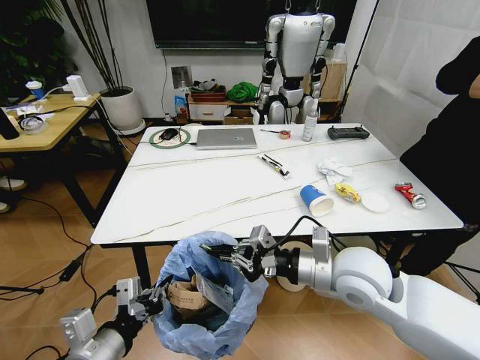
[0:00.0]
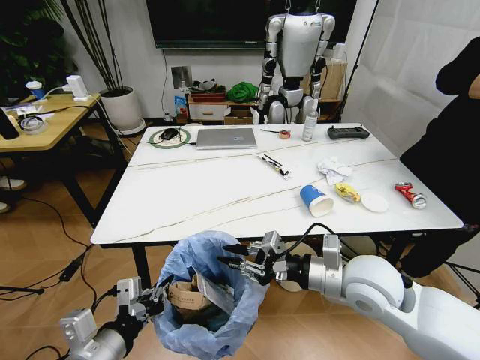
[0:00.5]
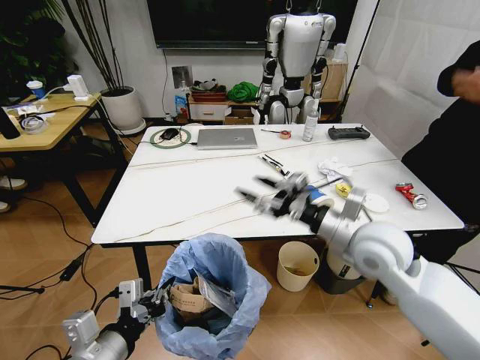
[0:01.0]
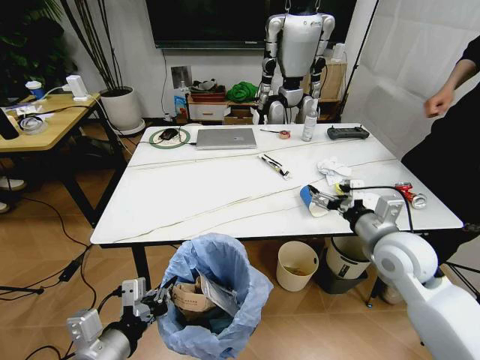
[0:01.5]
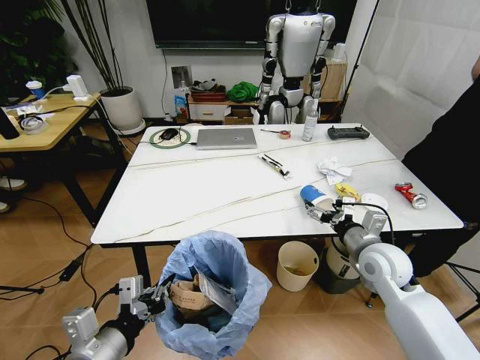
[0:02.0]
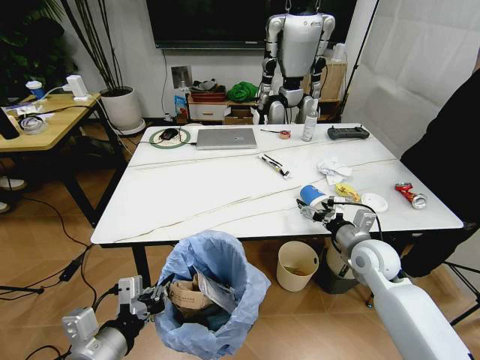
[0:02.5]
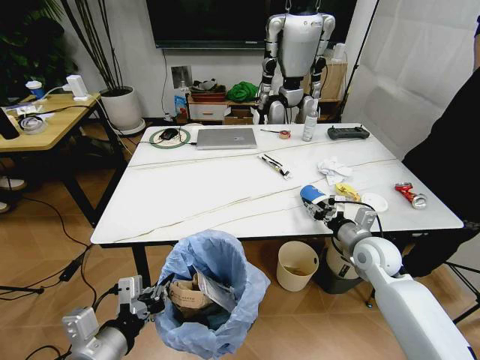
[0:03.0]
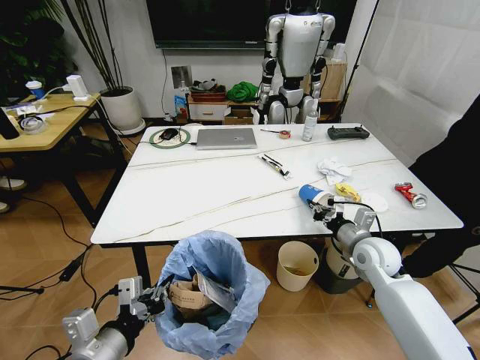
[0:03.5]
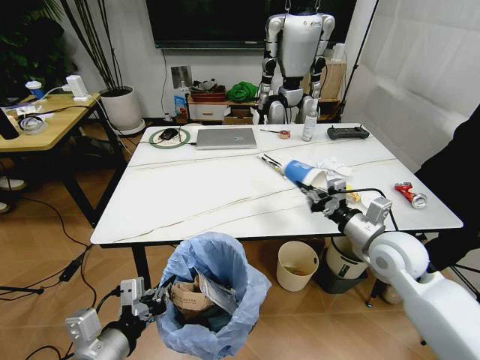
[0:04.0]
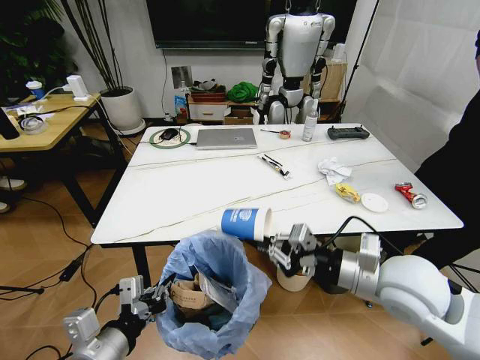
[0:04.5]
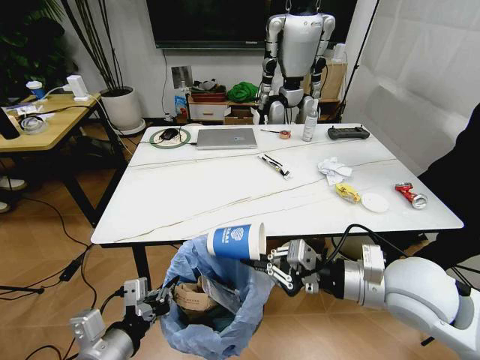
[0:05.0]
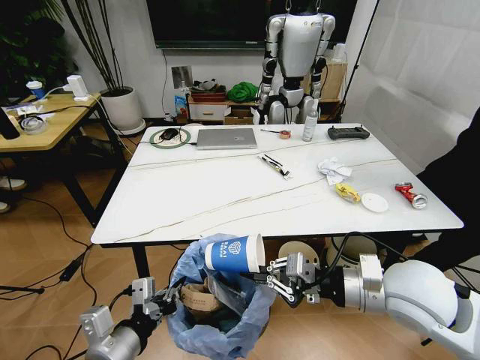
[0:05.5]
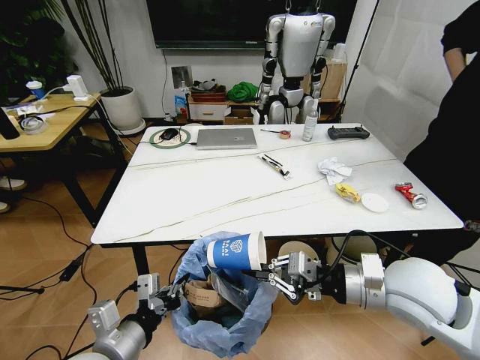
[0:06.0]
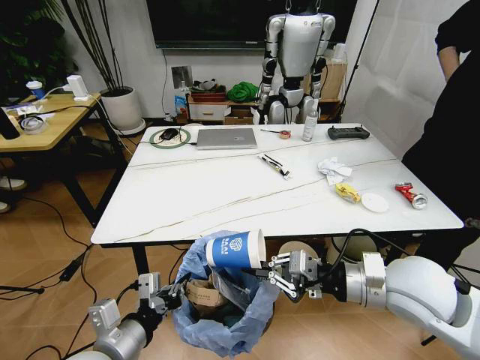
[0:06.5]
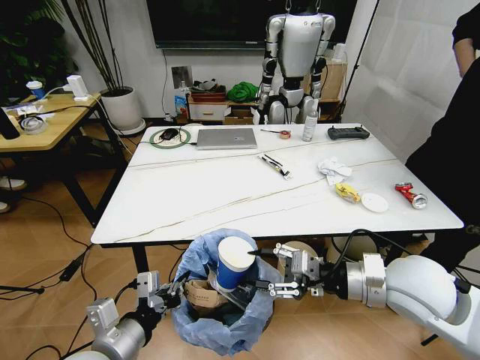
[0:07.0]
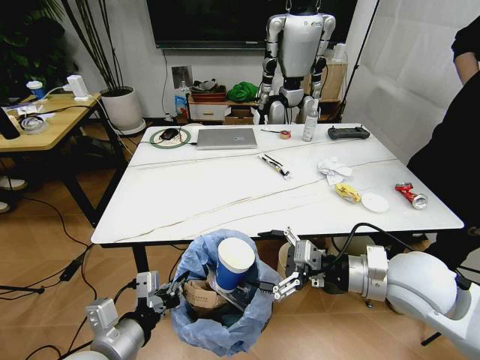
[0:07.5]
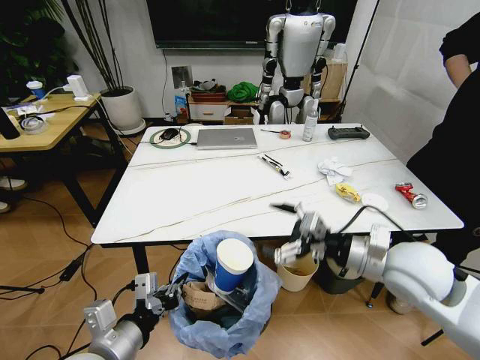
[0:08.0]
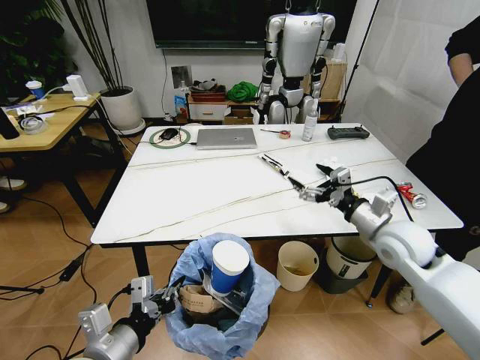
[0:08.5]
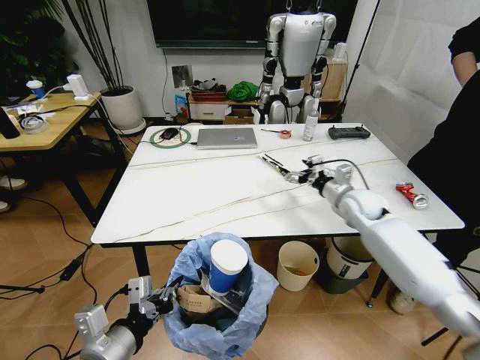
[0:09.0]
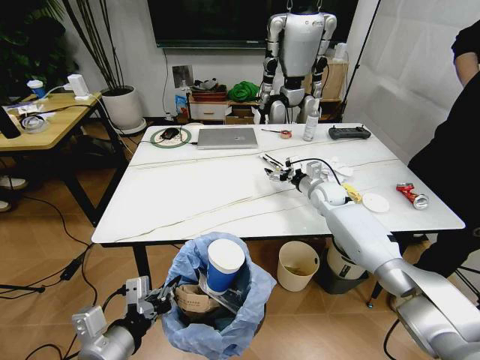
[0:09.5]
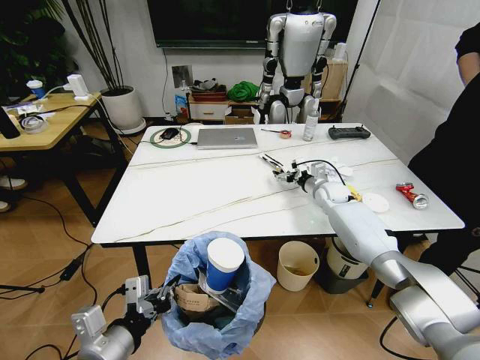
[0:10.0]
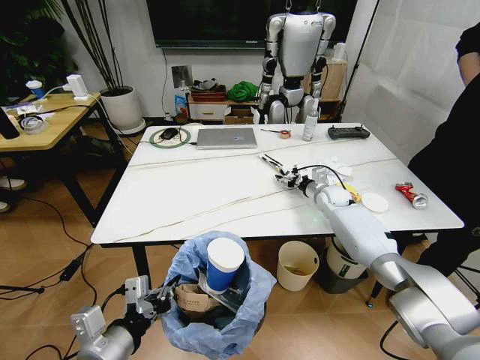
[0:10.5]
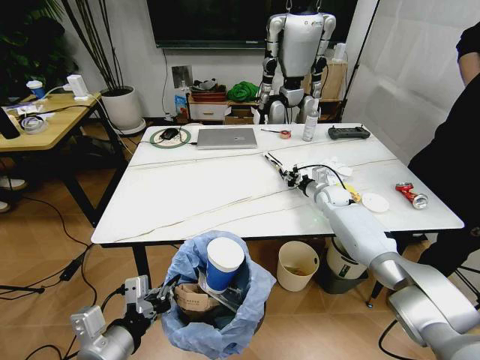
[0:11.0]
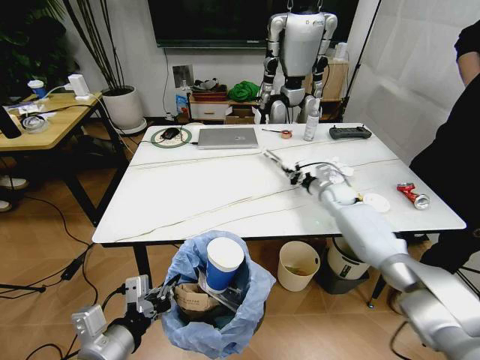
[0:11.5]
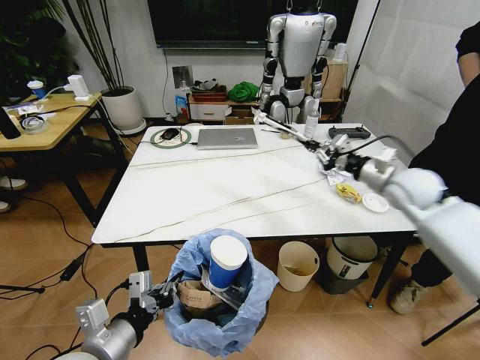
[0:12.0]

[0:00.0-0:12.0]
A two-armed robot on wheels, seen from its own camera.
Task of the whole recording: Pick up the trash bin and place the trash from the table into it.
0:00.0 to 0:02.0: The right gripper is displaced to the right, downward and forward by about 15 cm, and opens.
0:02.0 to 0:04.0: The right gripper closes up.
0:04.0 to 0:06.0: The right gripper goes about 10 cm backward.
0:06.0 to 0:08.0: The right gripper opens up.
0:08.0 to 0:10.0: The right gripper moves forward and downward, roughly 35 cm.
0:10.0 to 0:12.0: The right gripper shifts some 20 cm upward, backward and to the right, and closes.

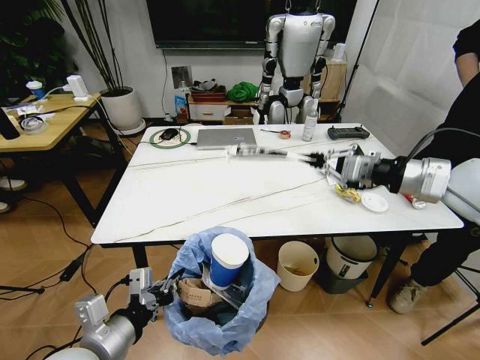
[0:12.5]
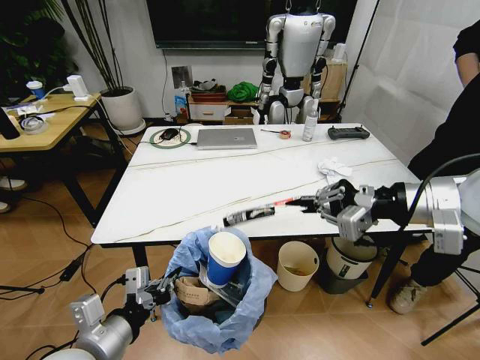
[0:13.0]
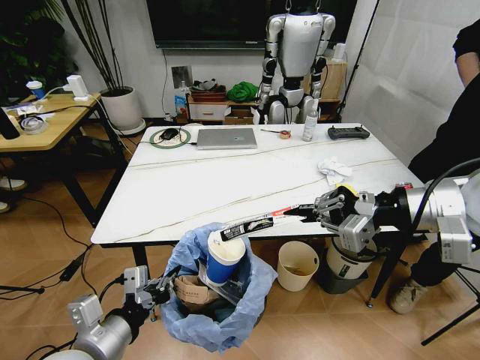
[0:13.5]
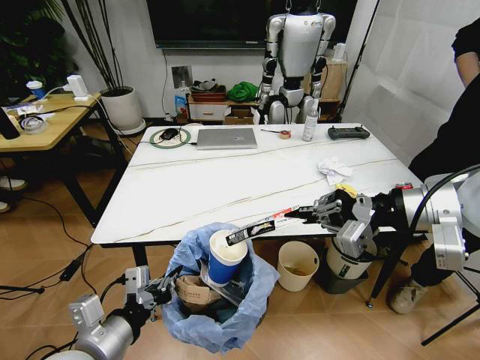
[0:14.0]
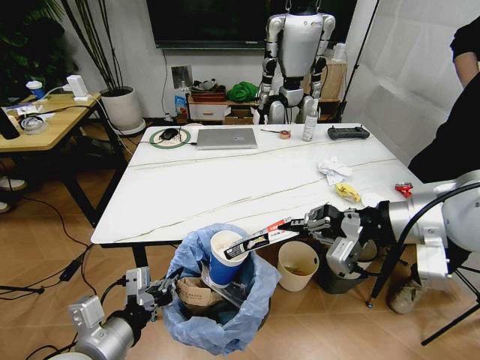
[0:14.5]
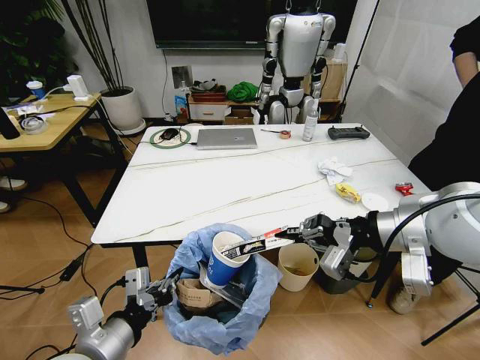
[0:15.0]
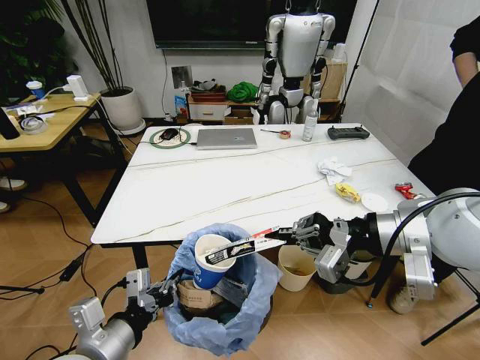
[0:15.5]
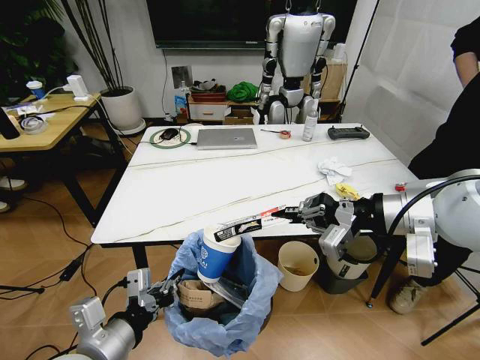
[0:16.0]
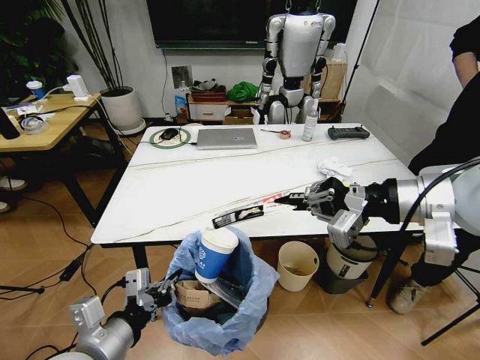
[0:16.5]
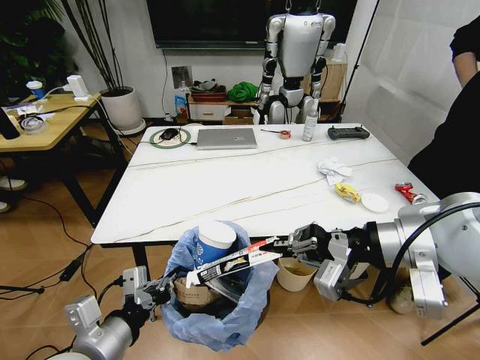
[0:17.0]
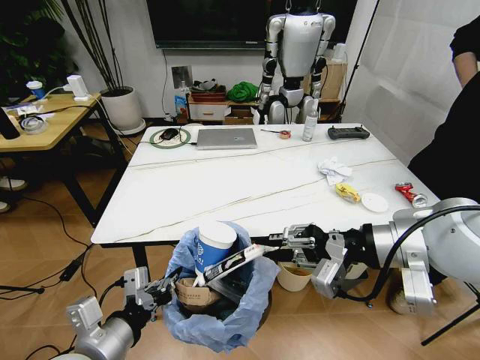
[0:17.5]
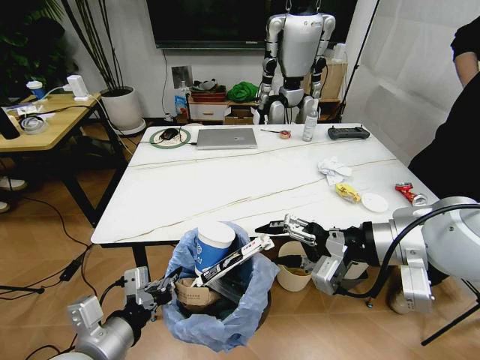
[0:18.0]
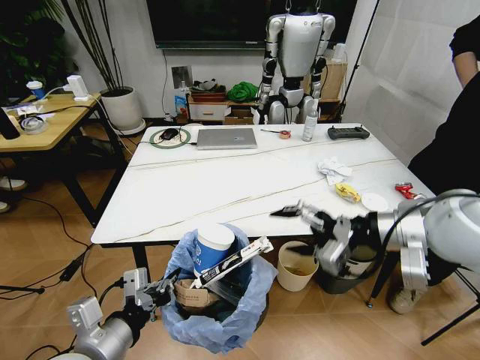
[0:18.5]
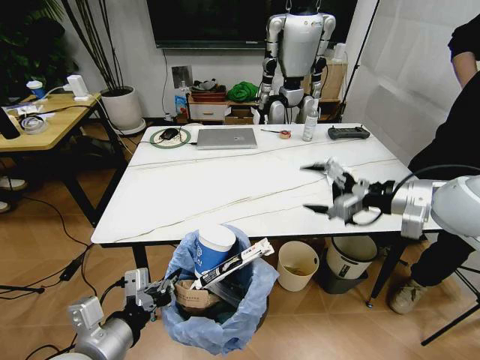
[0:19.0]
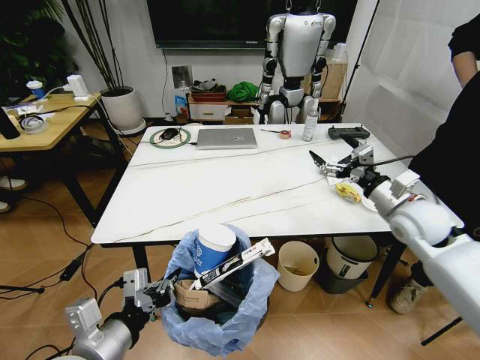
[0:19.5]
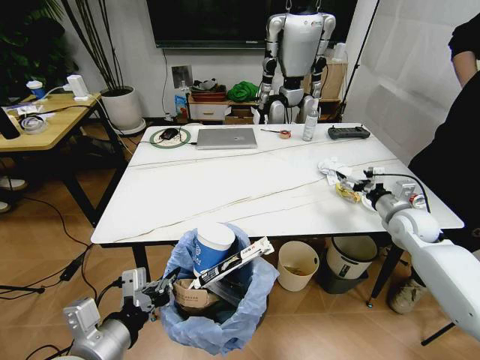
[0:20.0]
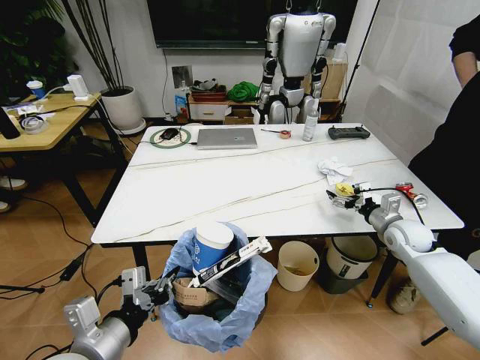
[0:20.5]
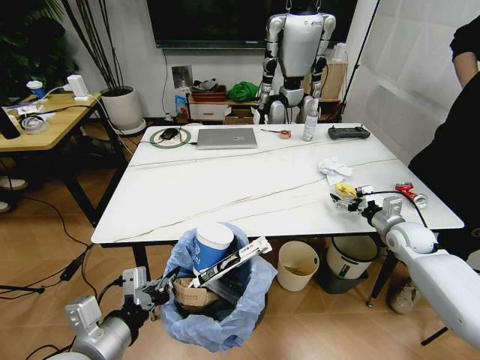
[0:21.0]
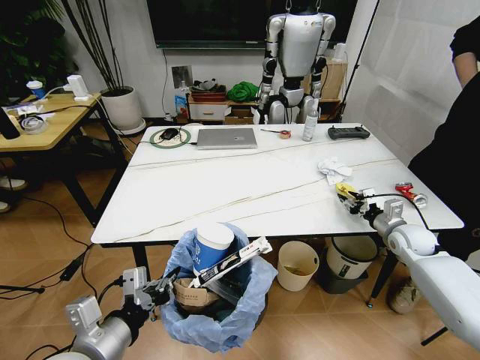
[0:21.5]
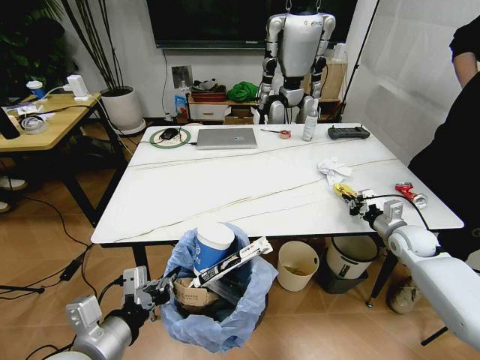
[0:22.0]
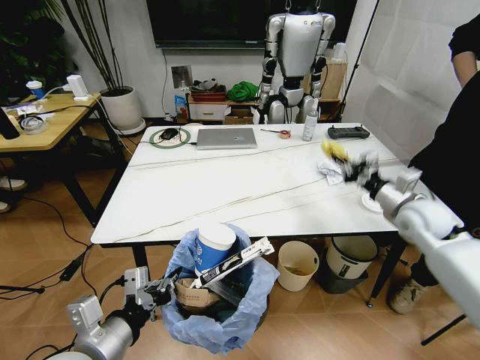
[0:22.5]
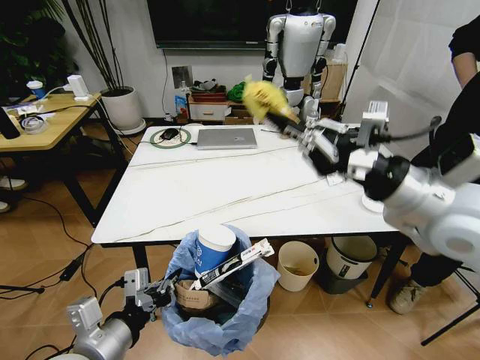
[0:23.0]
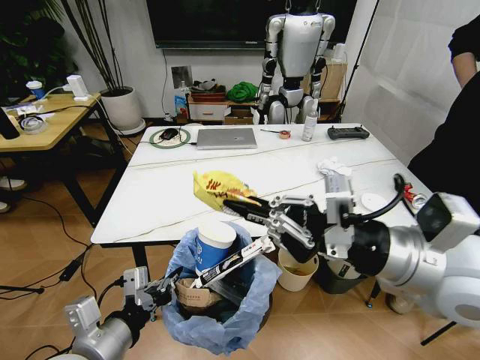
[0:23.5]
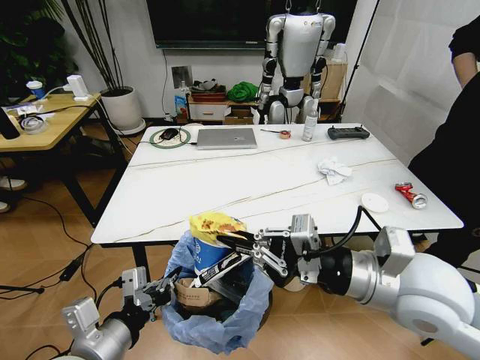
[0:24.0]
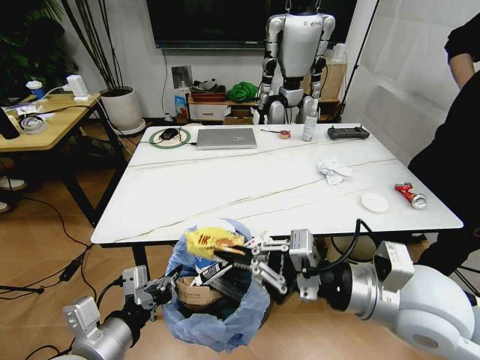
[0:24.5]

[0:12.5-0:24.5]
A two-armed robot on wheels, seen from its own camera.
Task of the whole recording: Pick up the trash bin and place the trash from the table into it.
0:12.5 to 0:14.5: The right gripper moves backward and to the left, roughly 10 cm.
0:14.5 to 0:16.5: There are only small adjustments of the grippers.
0:16.5 to 0:18.5: The right gripper goes some 5 cm downward, and opens its fingers.
0:18.5 to 0:20.5: The right gripper goes about 30 cm downward, forward and to the right.
0:20.5 to 0:22.5: The right gripper shifts some 10 cm upward, and closes up.
0:22.5 to 0:24.5: The right gripper shifts some 30 cm backward, to the left and upward.

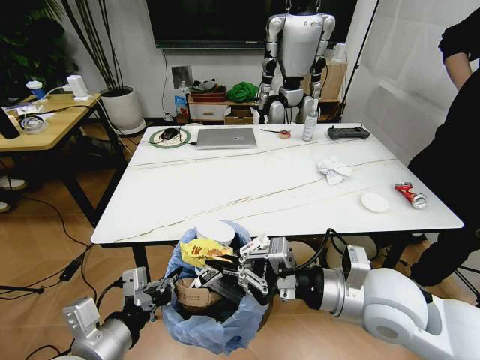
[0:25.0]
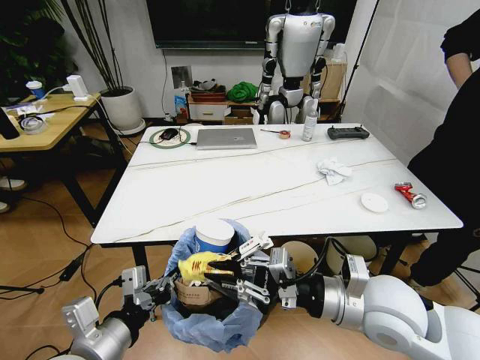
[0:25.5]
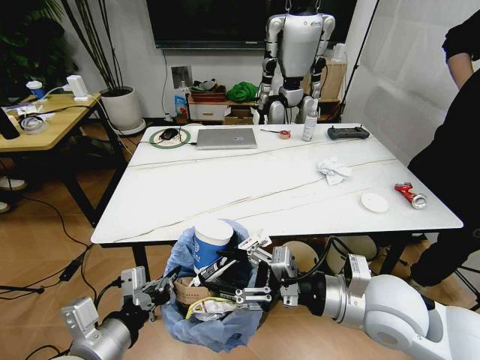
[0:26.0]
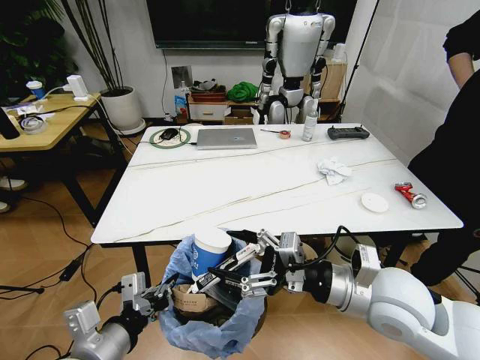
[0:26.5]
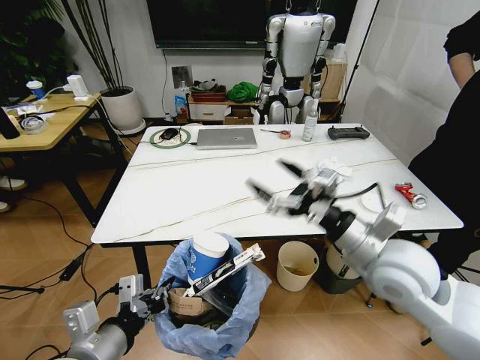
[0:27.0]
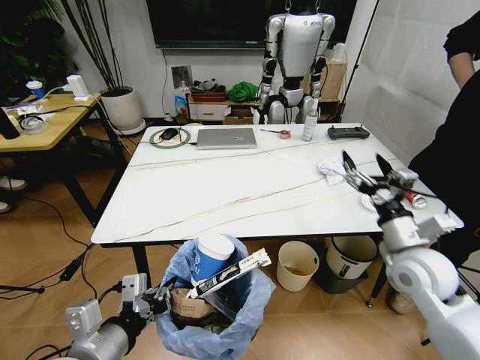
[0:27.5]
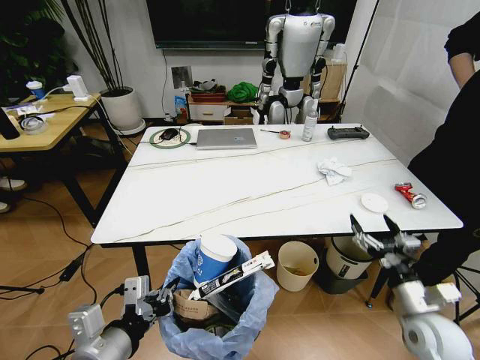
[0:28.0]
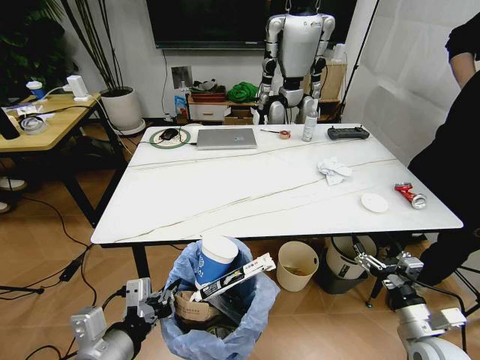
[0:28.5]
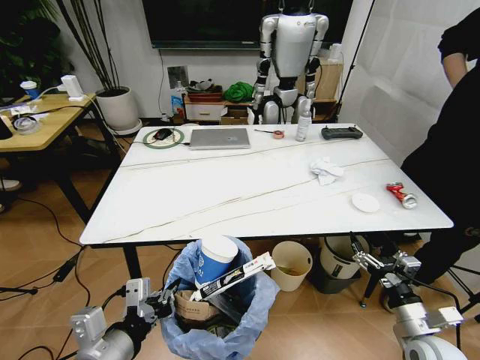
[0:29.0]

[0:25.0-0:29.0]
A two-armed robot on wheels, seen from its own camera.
Task of the whole recording: Pick up the trash bin and place the trash from the table into it.
0:25.0 to 0:27.0: The right gripper ends up approximately 5 cm from where it was, and opens its fingers.
0:27.0 to 0:29.0: The right gripper is displaced downward, to the right and backward by roughly 25 cm.
